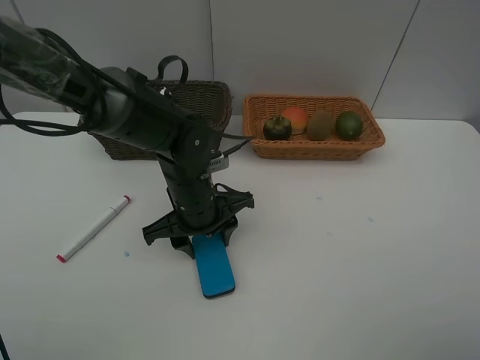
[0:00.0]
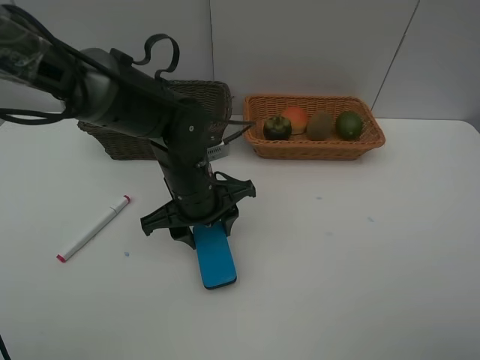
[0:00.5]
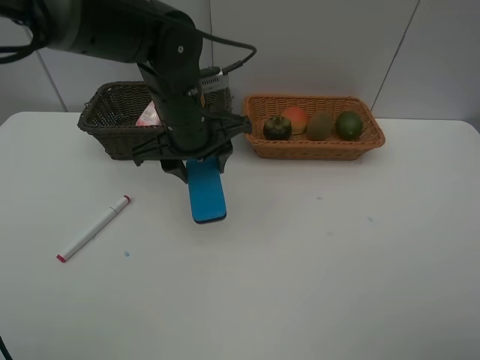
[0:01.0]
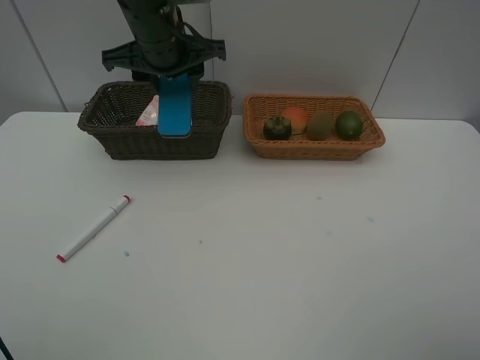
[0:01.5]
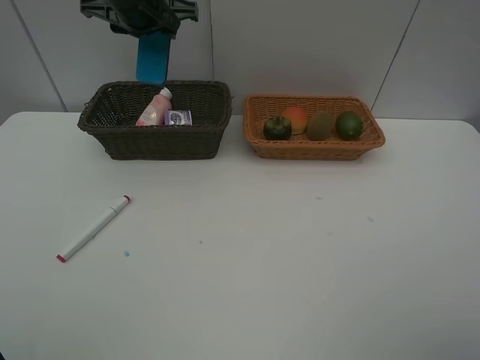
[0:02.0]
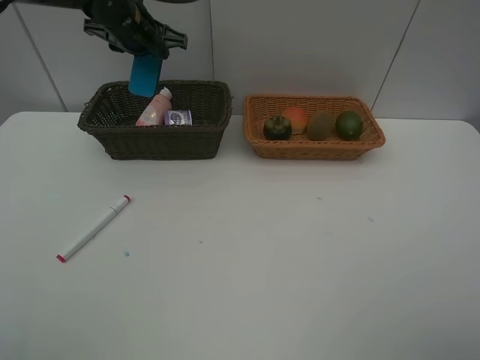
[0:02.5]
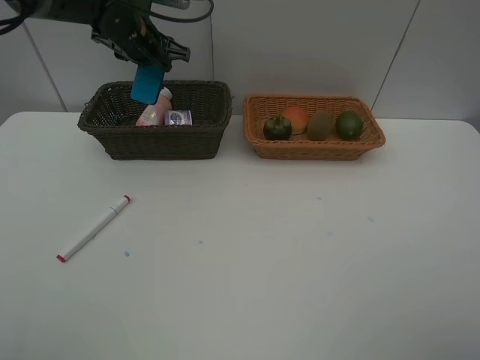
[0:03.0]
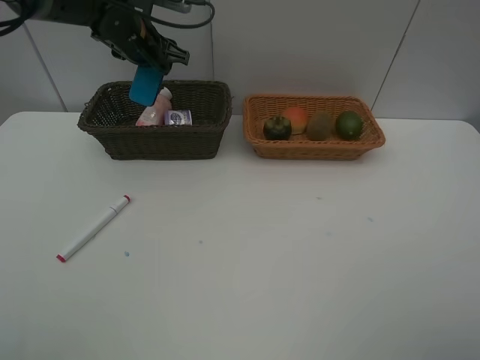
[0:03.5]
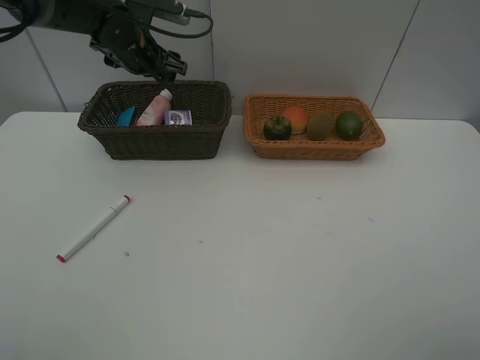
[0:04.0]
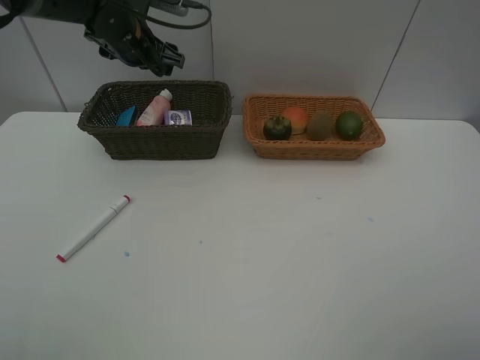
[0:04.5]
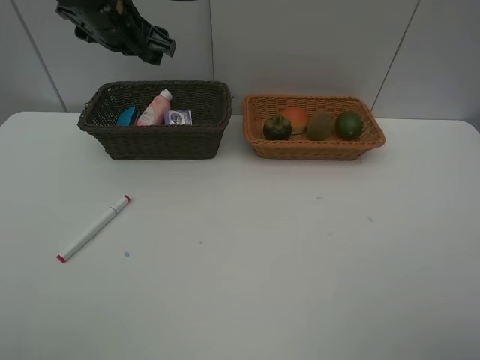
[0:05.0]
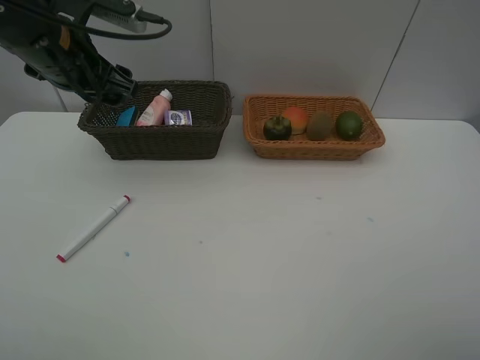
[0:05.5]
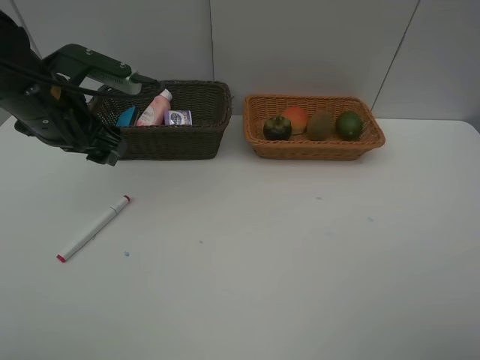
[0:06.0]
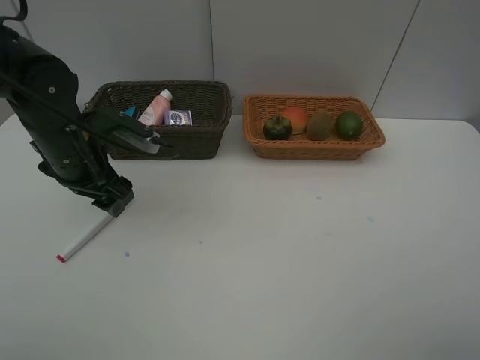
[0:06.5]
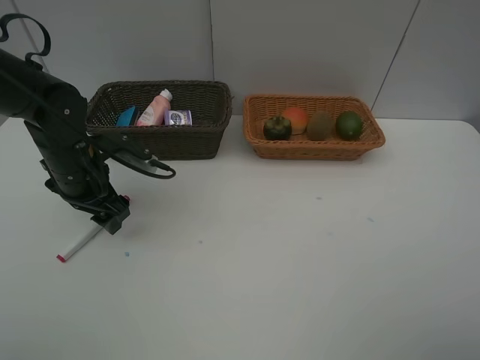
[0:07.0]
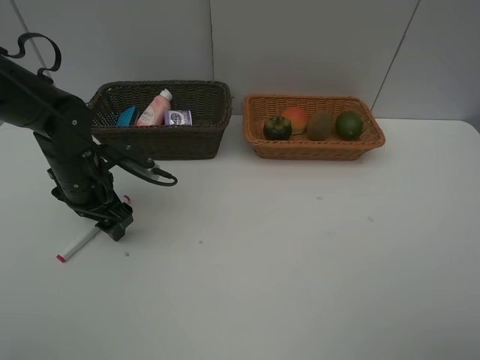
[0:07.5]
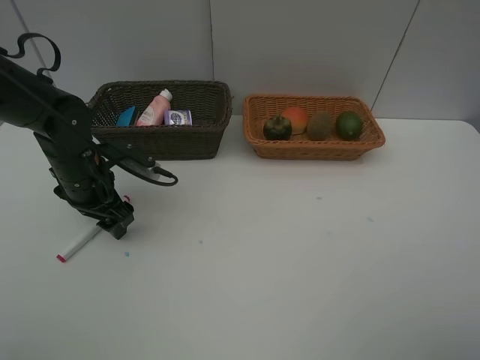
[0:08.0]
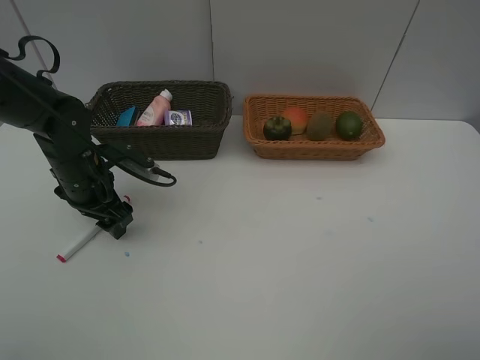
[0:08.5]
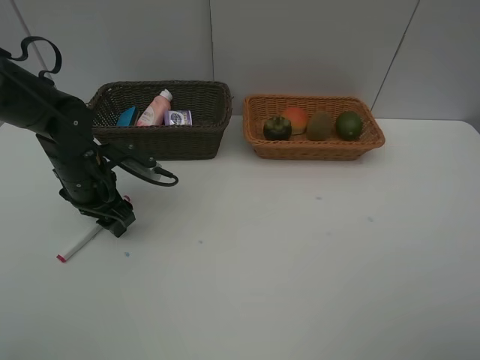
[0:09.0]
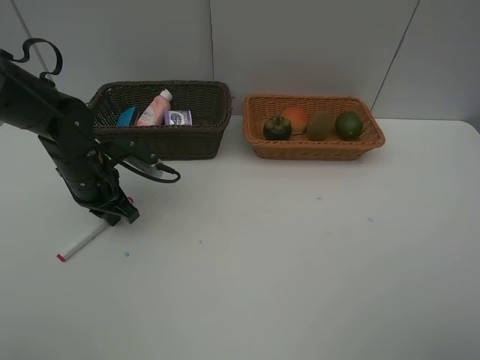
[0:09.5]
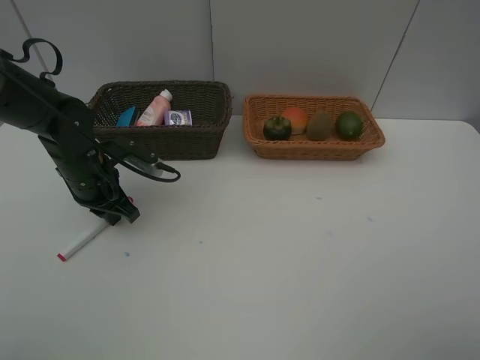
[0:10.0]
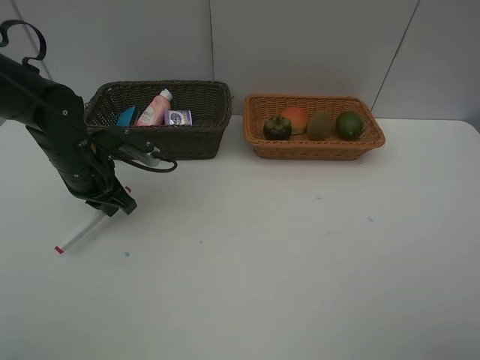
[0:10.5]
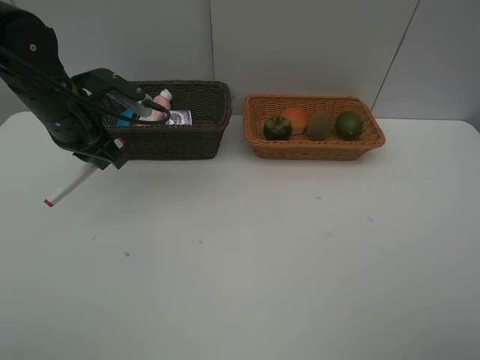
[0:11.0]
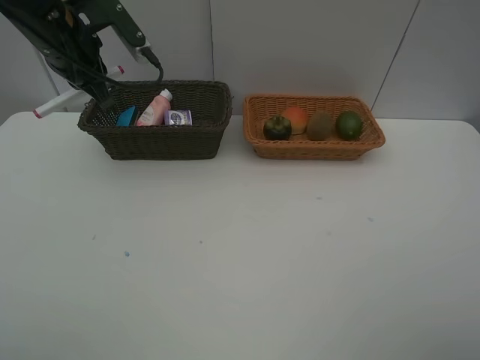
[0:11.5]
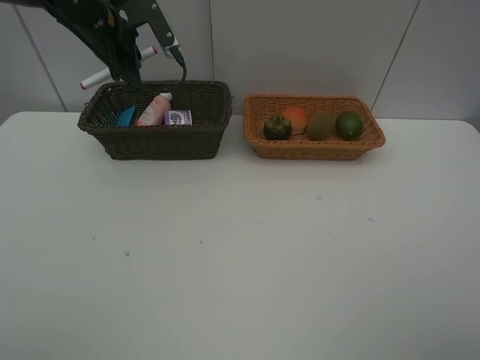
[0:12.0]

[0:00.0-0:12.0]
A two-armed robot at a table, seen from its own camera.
Task of the whole recording: Place multiple objects separately in different baskets.
Step, 0:01.0 to 0:03.5: Place the blackboard eraser in the dark basket with left gripper.
Step, 0:04.0 to 0:10.5: Pick up the red marker with left gripper.
0:00.0 to 0:02.0: The left gripper shifts roughly 25 cm upward, forward and to the left.
0:02.0 to 0:04.0: The left gripper goes roughly 10 cm downward, and opens its fingers.
0:04.0 to 0:06.0: The left gripper heads backward, covering roughly 20 cm.
0:06.0 to 0:08.0: The left gripper moves downward, roughly 10 cm.
0:08.0 to 0:10.0: The left gripper closes.
0:10.0 to 0:12.0: The left gripper is displaced upward and forward by about 20 cm.

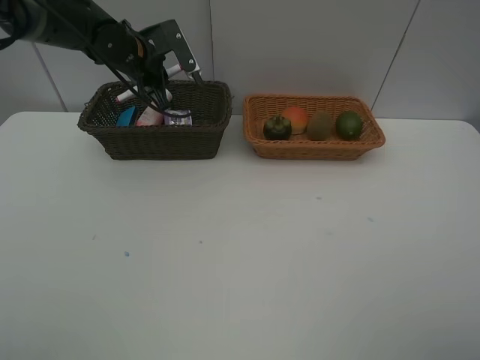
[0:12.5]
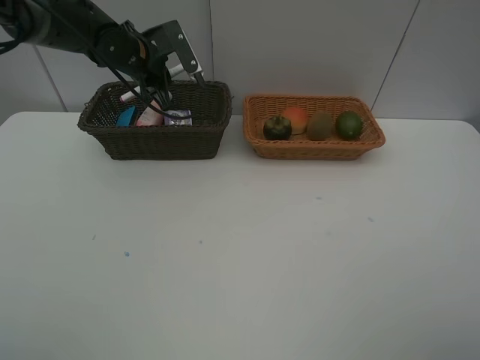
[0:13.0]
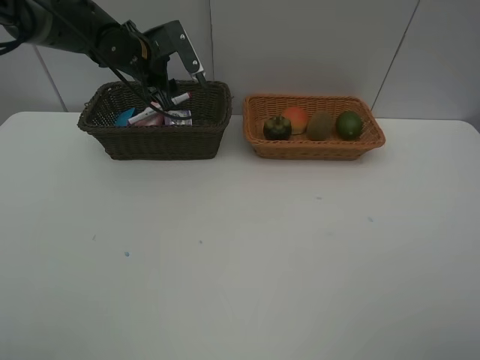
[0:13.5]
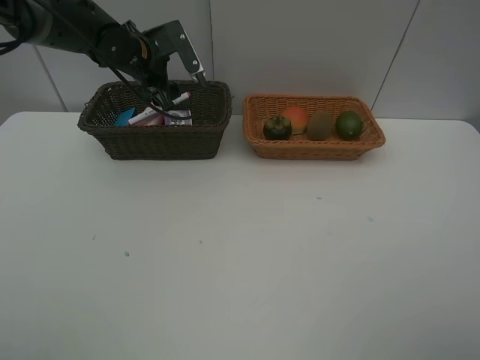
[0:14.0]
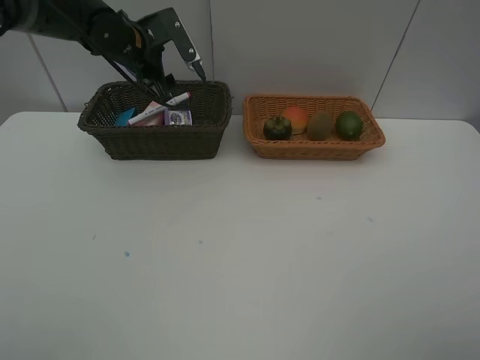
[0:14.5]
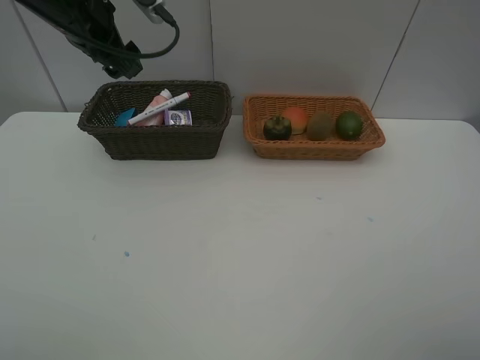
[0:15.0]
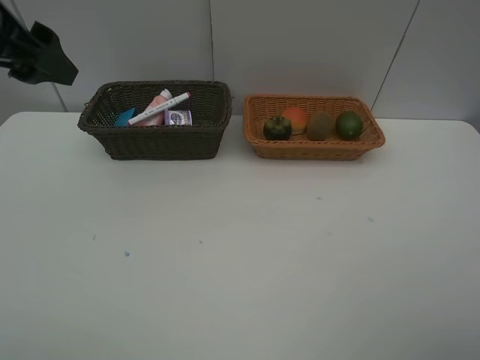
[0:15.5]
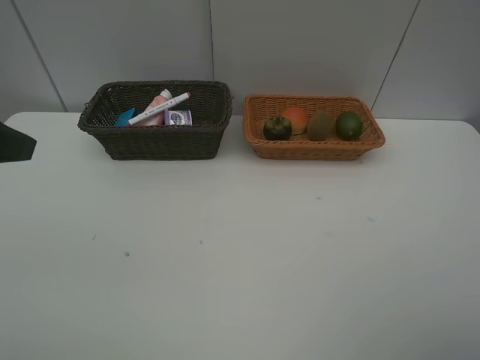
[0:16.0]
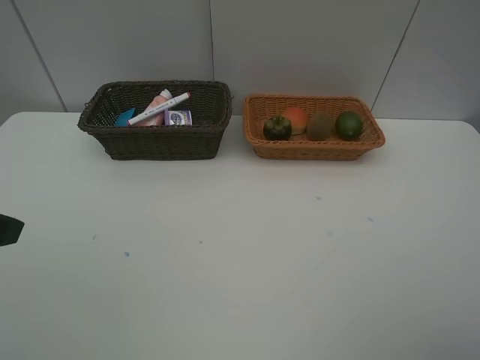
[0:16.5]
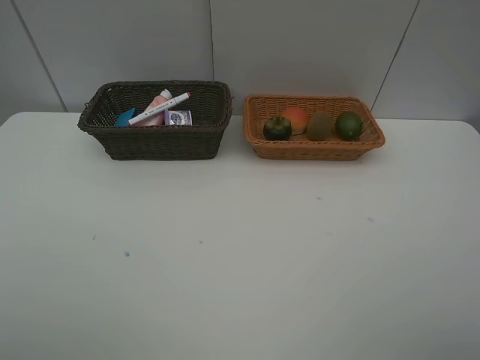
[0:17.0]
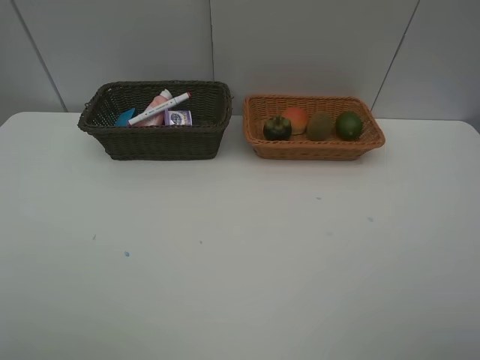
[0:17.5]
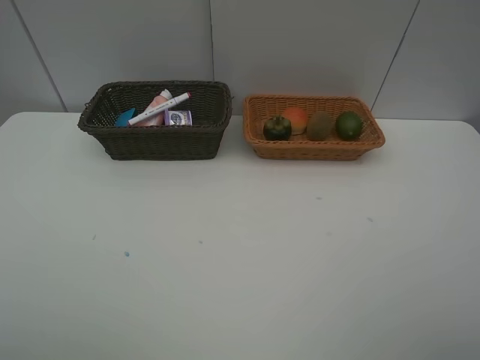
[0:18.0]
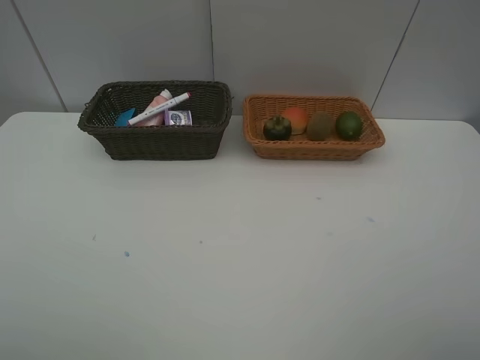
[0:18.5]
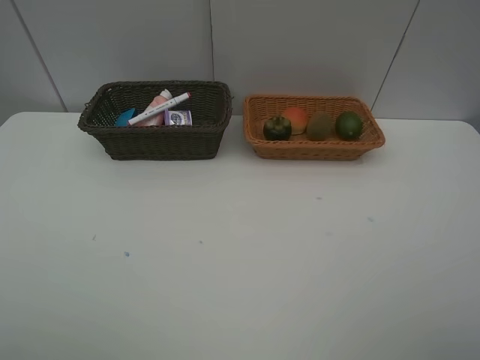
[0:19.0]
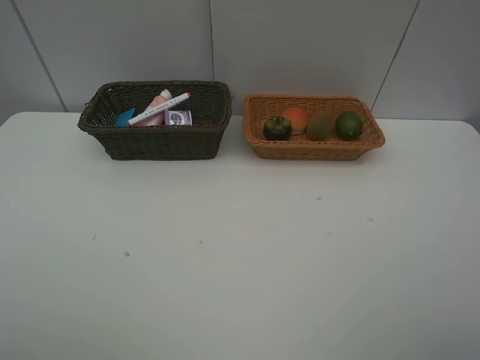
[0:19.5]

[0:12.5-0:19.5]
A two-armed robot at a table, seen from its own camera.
Task of the whole recording: Place multiple objects separately in different baskets.
0:12.5 to 0:14.5: The left gripper opens its fingers.
0:14.5 to 0:16.0: The left gripper shifts about 30 cm backward.

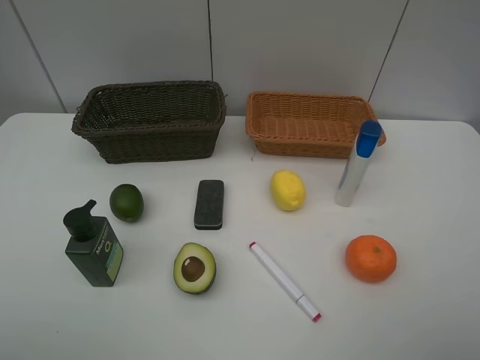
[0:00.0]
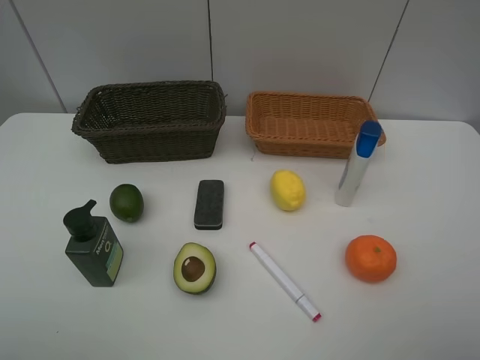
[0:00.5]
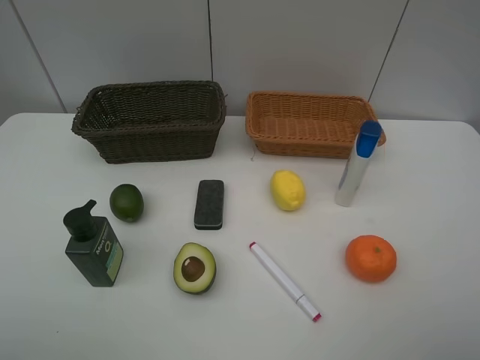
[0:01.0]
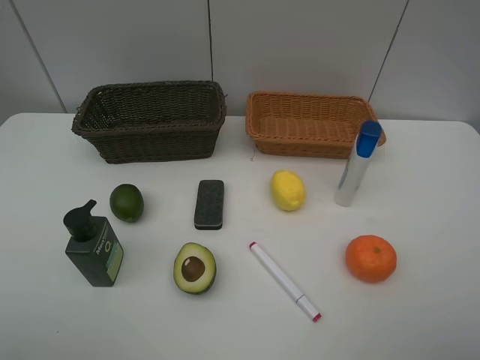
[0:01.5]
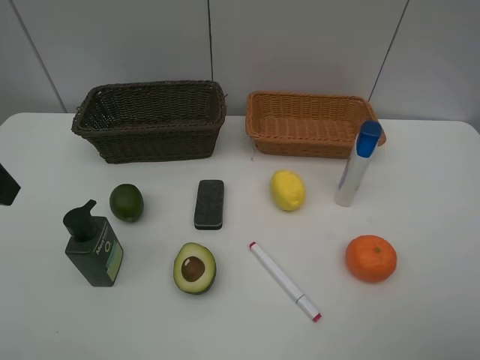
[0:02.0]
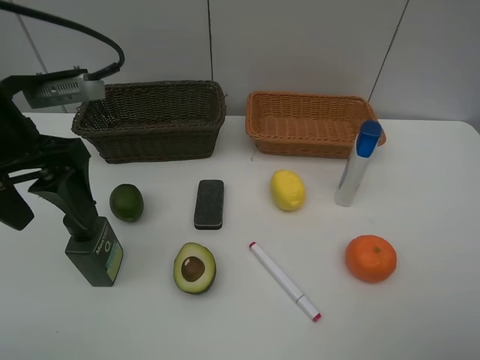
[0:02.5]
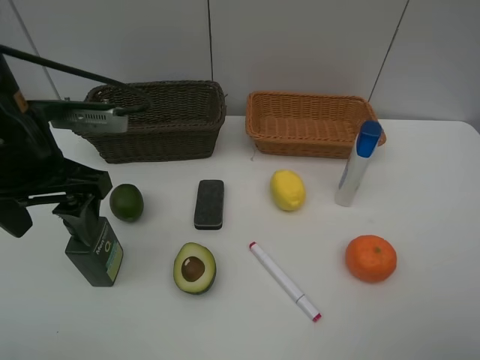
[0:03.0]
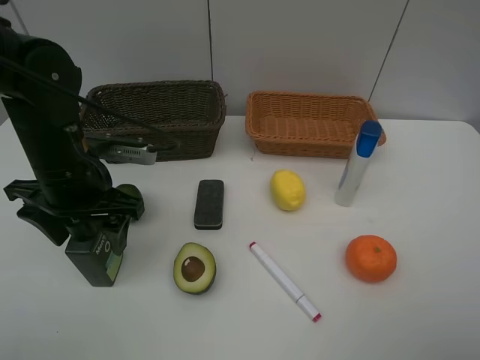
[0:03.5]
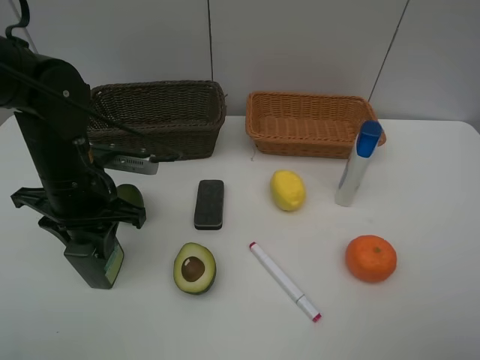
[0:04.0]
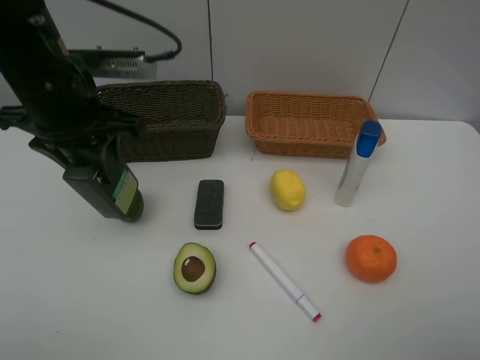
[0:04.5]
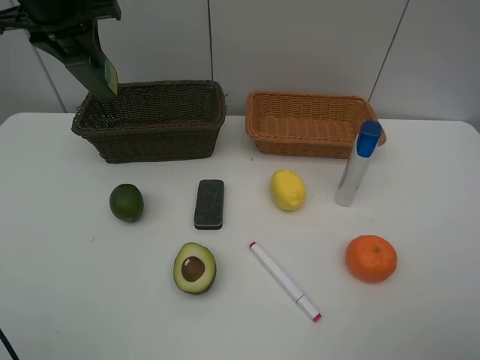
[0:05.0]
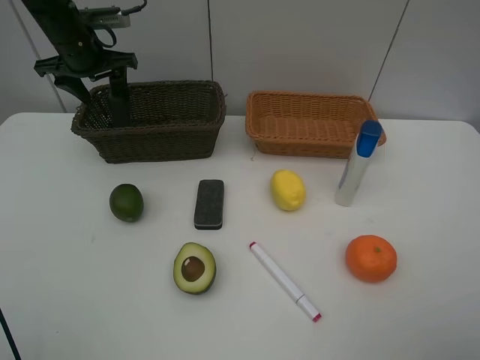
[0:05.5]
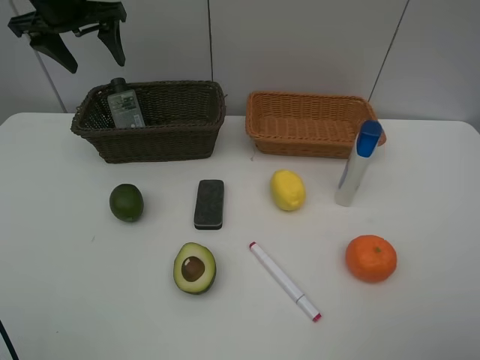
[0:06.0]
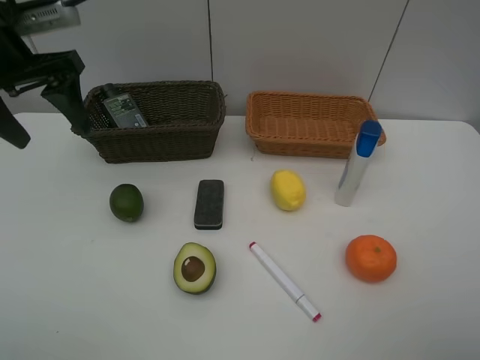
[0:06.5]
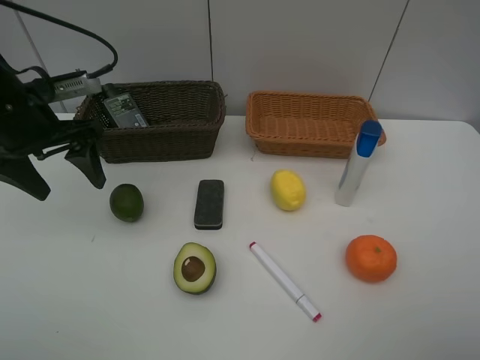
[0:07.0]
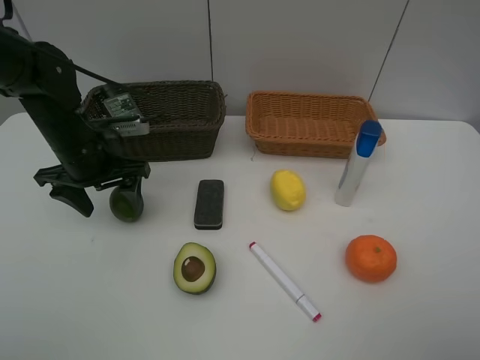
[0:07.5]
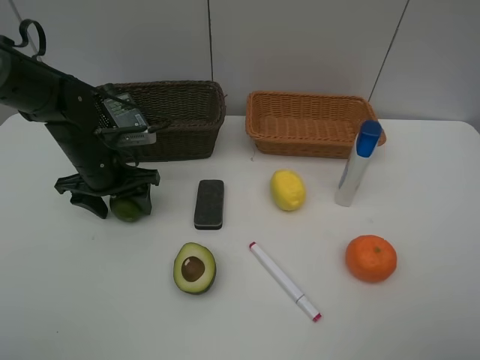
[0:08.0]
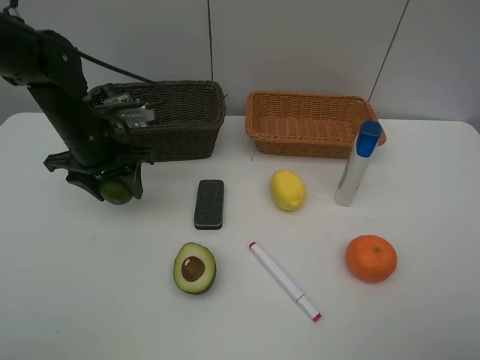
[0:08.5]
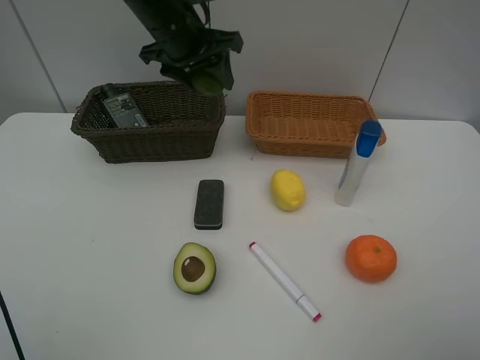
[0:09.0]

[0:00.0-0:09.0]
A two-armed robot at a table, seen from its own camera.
Task of the whole recording: Place multiple objects separately in different baskets.
Step, 0:00.0 to 0:04.0: Pick up the hard facial cleanser with left gripper.
Step, 0:04.5 to 0:05.5: Place the hard facial cleanser in the dark basket with left gripper.
Step, 0:06.0 to 0:08.5: Pick up the lemon with left gripper.
0:02.0 to 0:04.5: The left gripper heads forward and to the right, covering roughly 15 cm, goes downward and returns, approximately 15 cm each way, and closes its fingers.
0:04.5 to 0:07.0: The left gripper travels to the left and downward by about 10 cm, travels forward and back again, roughly 20 cm each way, and opens.
0:07.0 to 0:09.0: The left gripper goes some 20 cm to the right and forward, and closes up.
